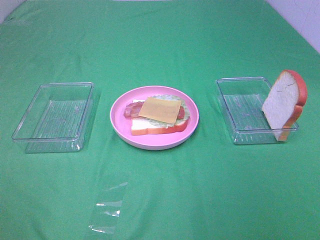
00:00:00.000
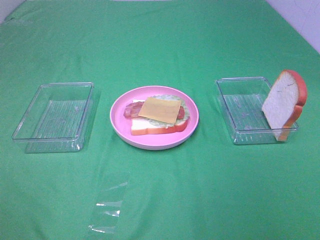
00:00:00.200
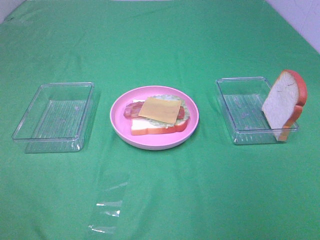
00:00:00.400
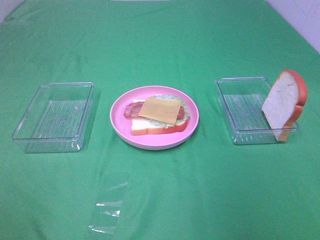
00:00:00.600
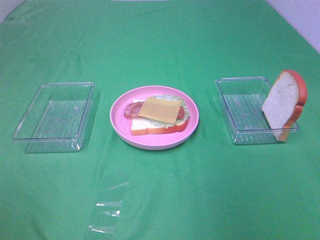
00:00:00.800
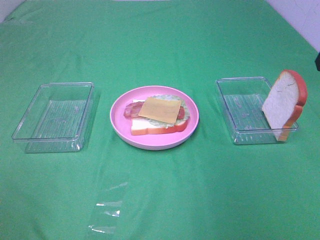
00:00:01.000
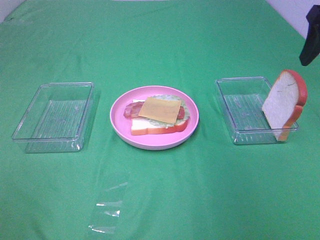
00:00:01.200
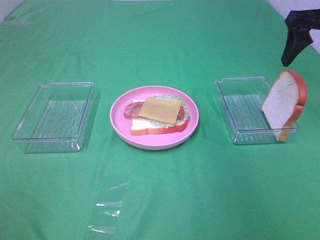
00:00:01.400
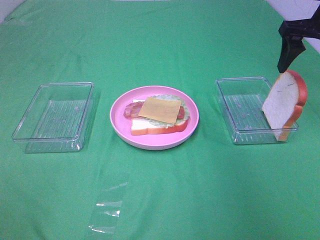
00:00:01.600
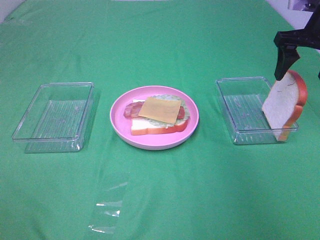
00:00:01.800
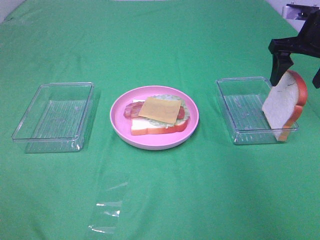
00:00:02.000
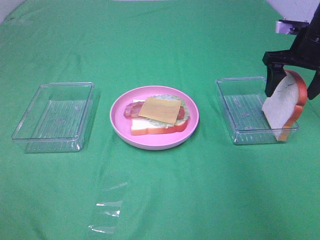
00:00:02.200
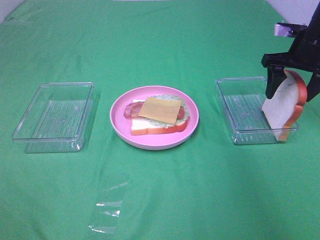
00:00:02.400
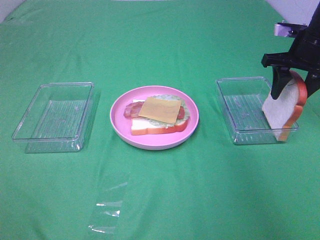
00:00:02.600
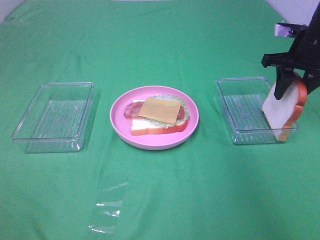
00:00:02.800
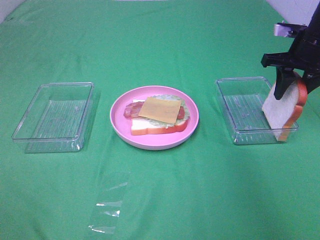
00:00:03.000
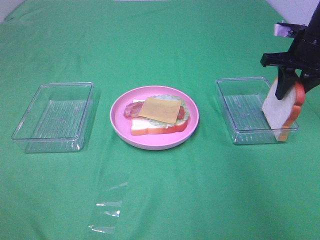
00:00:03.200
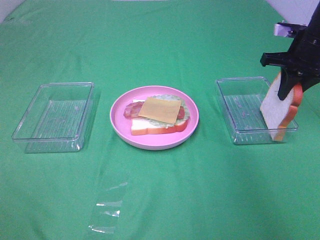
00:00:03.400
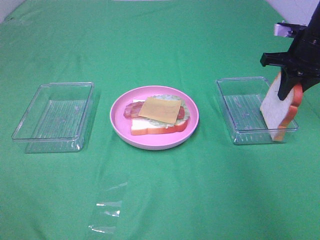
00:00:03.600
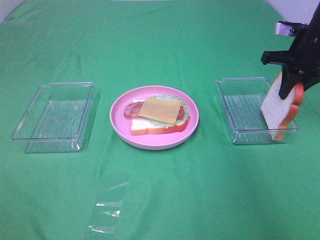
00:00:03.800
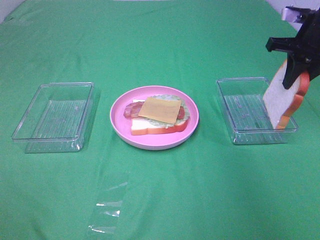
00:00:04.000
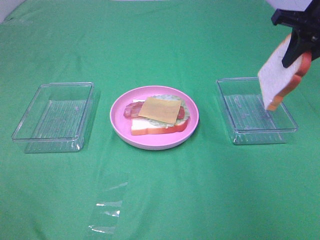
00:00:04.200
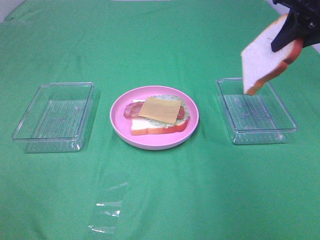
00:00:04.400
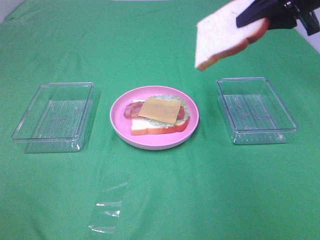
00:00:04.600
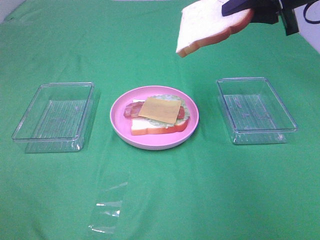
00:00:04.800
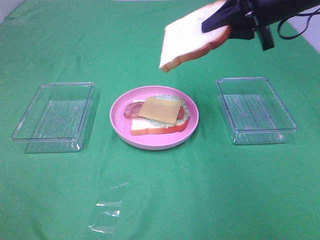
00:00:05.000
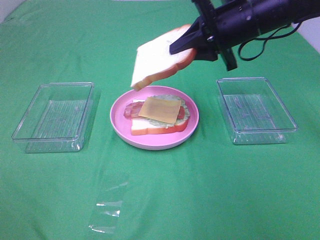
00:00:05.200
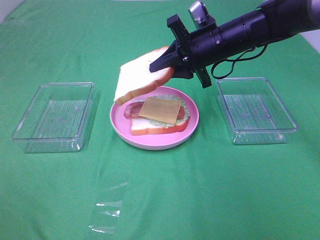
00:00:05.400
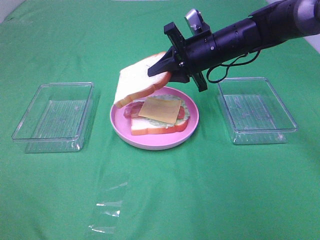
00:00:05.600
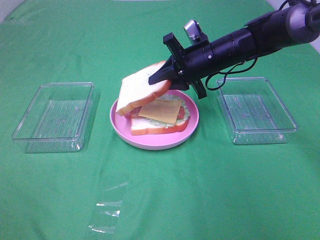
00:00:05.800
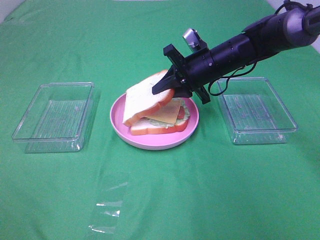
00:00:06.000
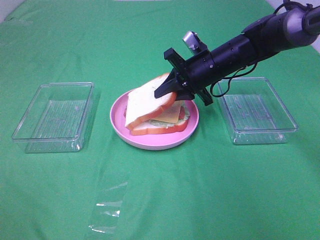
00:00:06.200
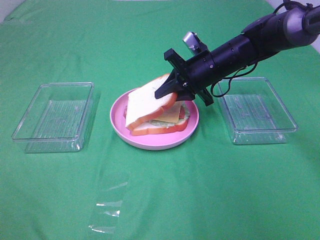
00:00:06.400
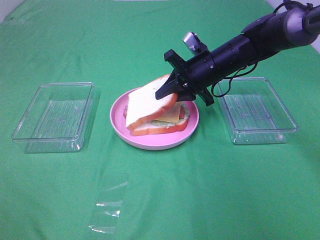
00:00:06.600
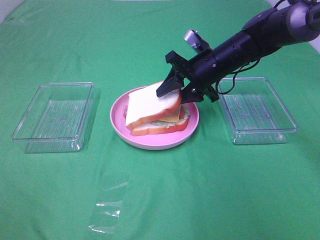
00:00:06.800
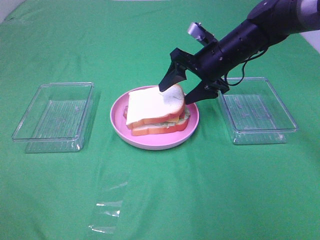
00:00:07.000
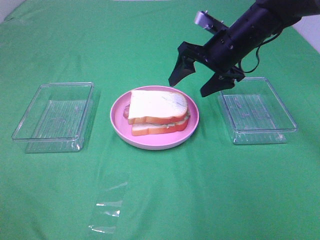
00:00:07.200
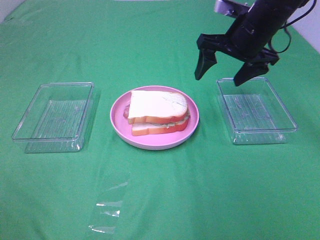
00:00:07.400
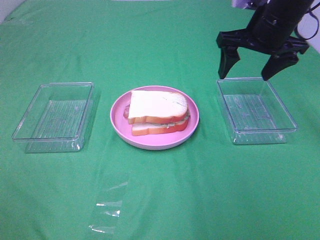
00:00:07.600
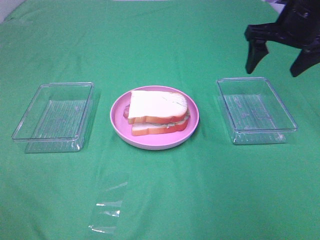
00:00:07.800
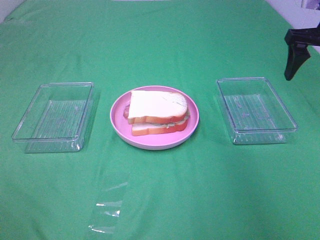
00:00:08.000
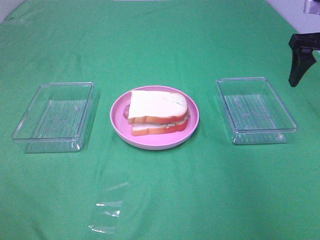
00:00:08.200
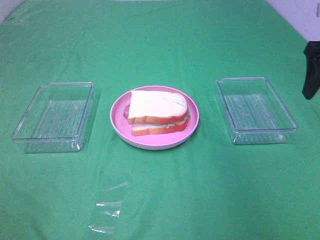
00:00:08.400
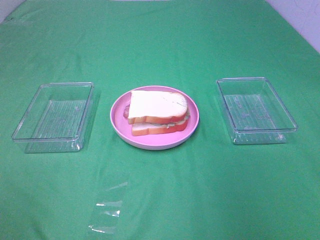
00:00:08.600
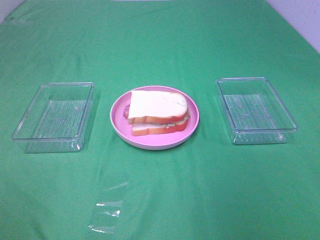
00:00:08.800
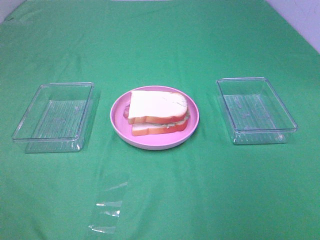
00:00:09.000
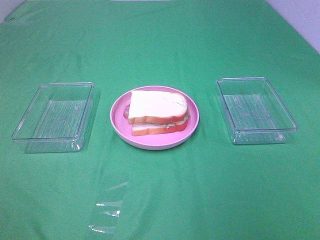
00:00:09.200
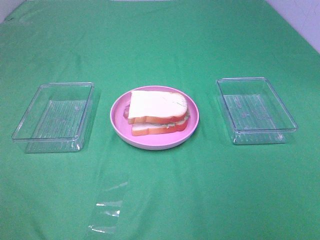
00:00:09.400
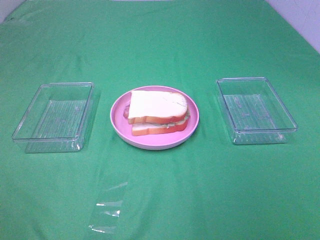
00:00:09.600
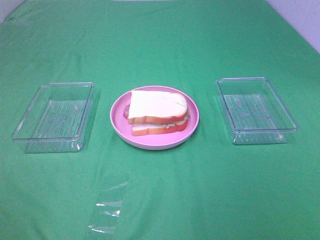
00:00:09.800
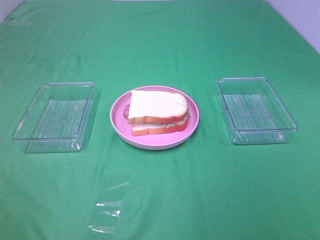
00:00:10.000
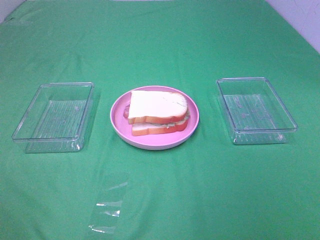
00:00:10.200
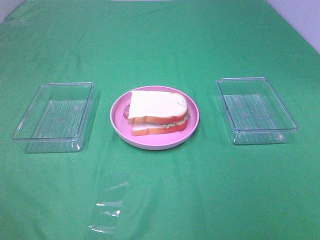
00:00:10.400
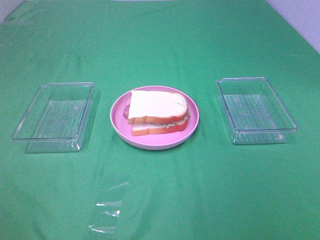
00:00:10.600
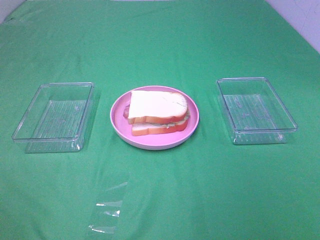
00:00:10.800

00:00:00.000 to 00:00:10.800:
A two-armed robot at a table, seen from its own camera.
Task of the whole recording: Make sandwiches.
Step, 00:00:00.000 to 00:00:03.400: Right hand:grab the bread slice.
Step, 00:00:03.600 to 00:00:07.000: Right hand:place the bread slice on the cheese slice.
00:00:00.000 to 00:00:01.600: The right gripper travels forward by roughly 40 cm.
00:00:01.600 to 00:00:03.000: The right gripper is displaced downward by some 5 cm, and closes its fingers.
00:00:03.000 to 00:00:04.600: The right gripper heads upward, backward and to the left, covering some 15 cm, and closes up.
00:00:04.600 to 00:00:06.200: The right gripper moves downward and to the left, approximately 20 cm.
00:00:06.200 to 00:00:07.800: The right gripper moves to the right and upward, about 20 cm, and opens.
00:00:07.800 to 00:00:09.200: The right gripper moves backward, about 35 cm.

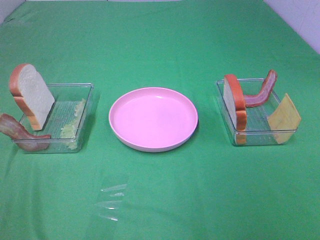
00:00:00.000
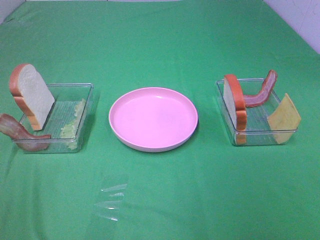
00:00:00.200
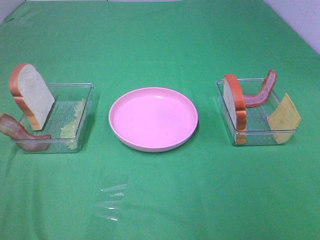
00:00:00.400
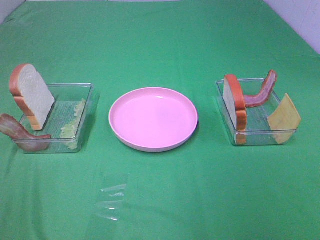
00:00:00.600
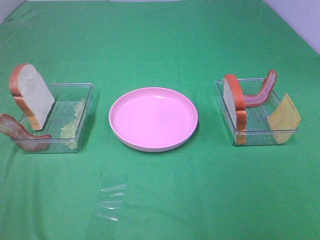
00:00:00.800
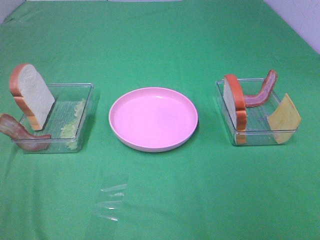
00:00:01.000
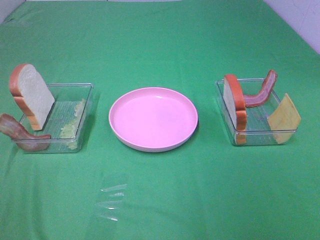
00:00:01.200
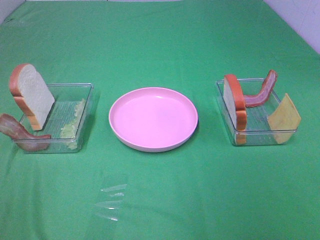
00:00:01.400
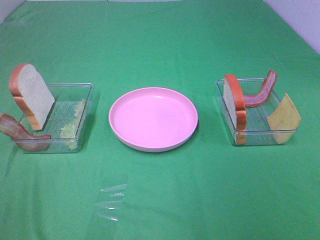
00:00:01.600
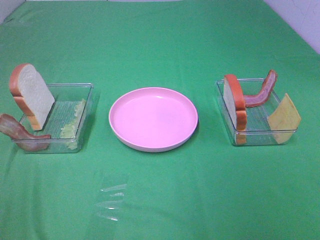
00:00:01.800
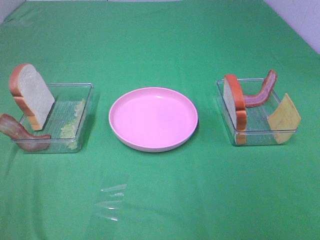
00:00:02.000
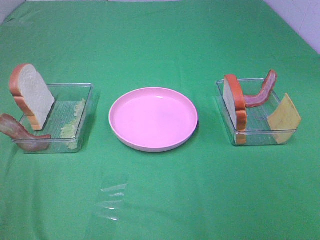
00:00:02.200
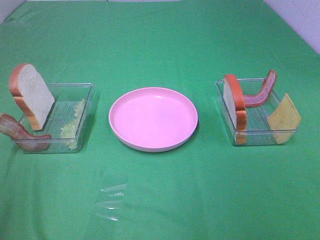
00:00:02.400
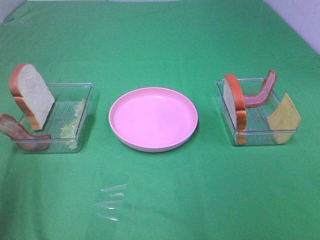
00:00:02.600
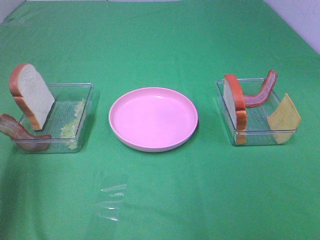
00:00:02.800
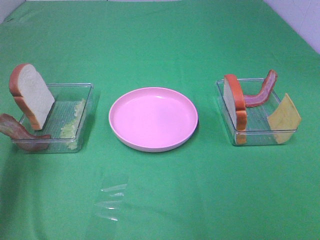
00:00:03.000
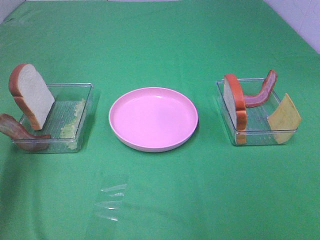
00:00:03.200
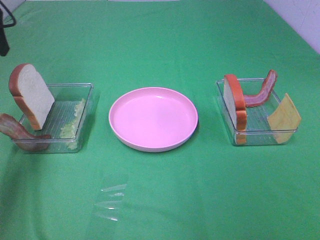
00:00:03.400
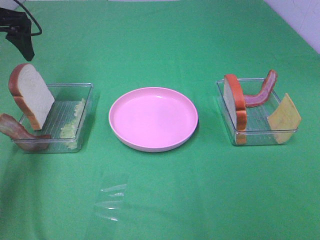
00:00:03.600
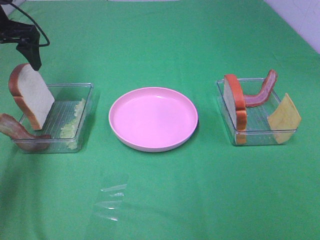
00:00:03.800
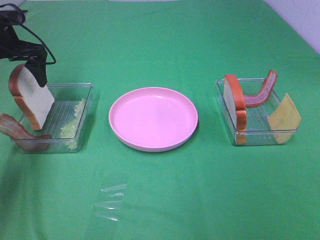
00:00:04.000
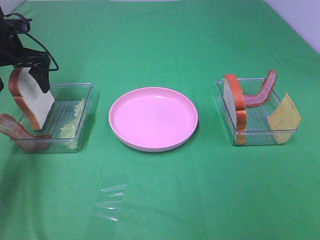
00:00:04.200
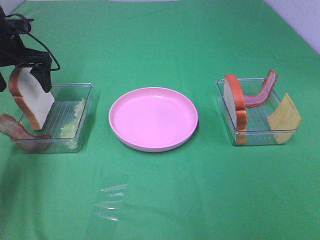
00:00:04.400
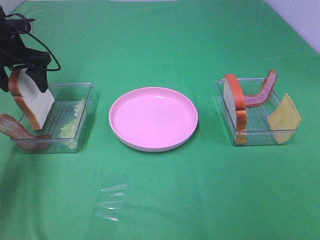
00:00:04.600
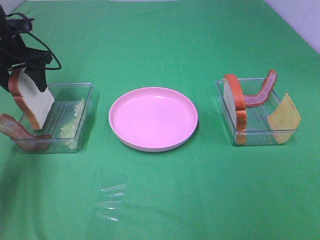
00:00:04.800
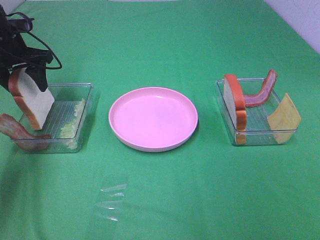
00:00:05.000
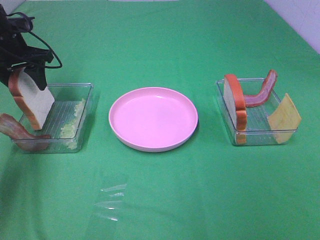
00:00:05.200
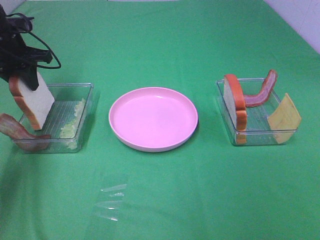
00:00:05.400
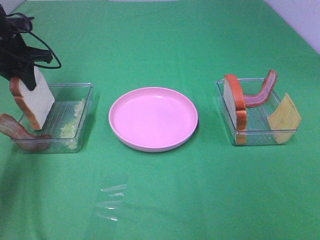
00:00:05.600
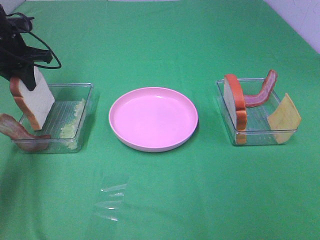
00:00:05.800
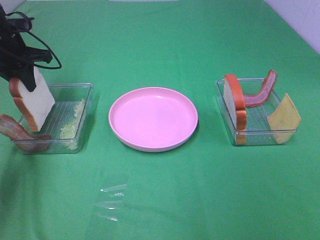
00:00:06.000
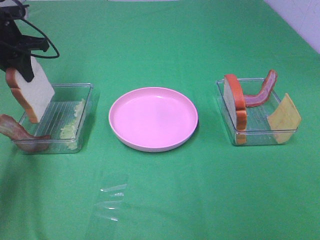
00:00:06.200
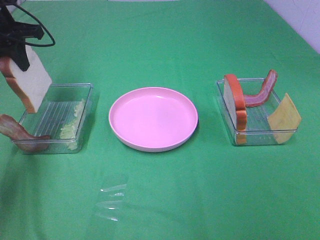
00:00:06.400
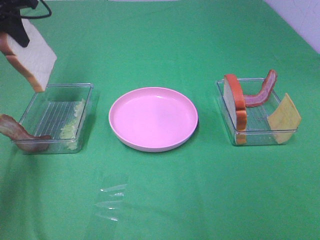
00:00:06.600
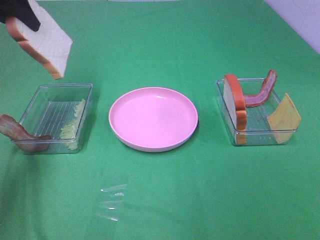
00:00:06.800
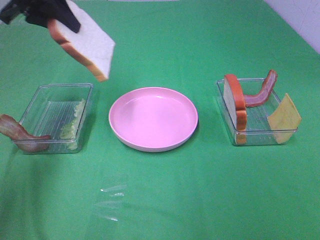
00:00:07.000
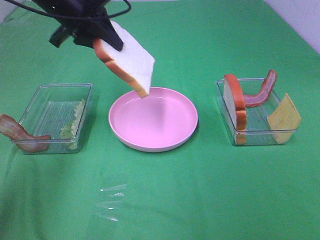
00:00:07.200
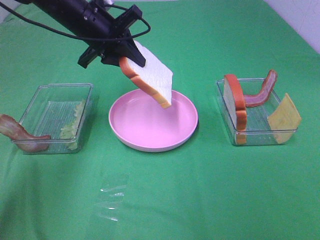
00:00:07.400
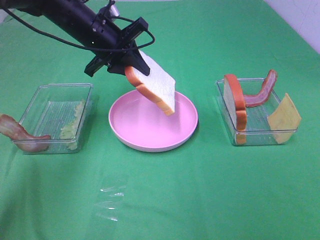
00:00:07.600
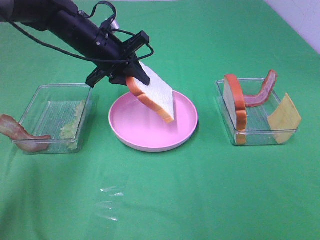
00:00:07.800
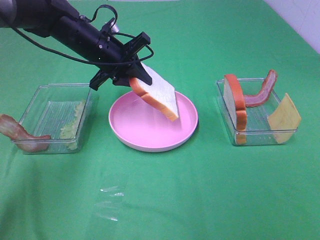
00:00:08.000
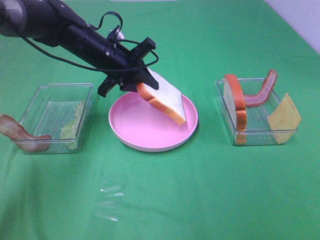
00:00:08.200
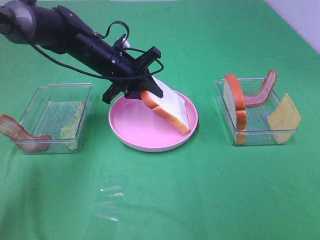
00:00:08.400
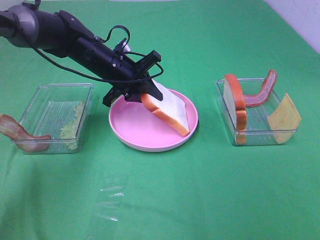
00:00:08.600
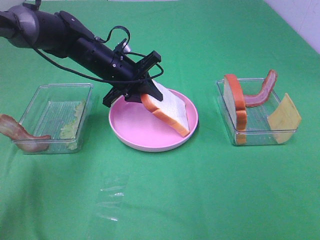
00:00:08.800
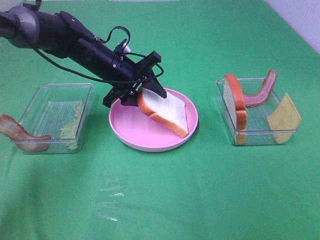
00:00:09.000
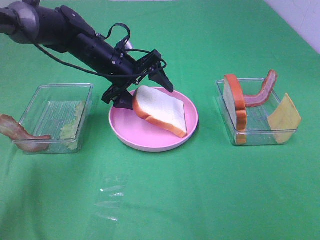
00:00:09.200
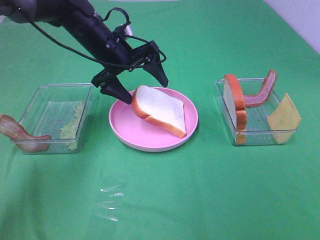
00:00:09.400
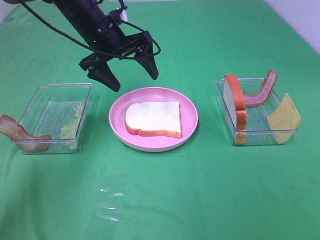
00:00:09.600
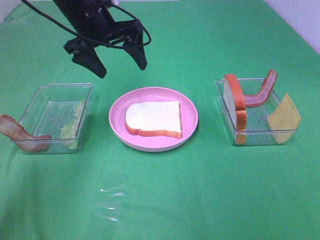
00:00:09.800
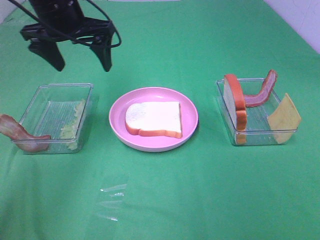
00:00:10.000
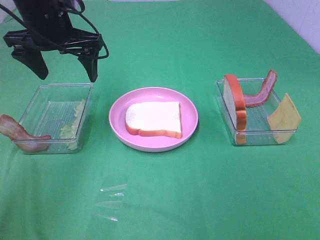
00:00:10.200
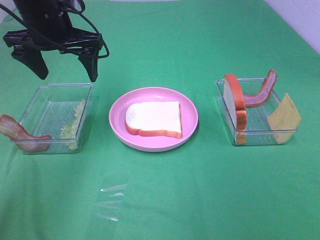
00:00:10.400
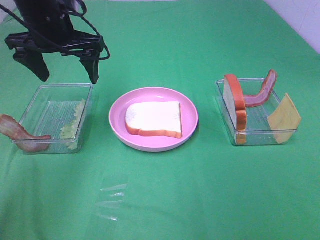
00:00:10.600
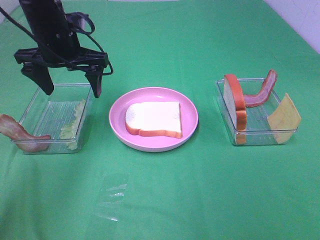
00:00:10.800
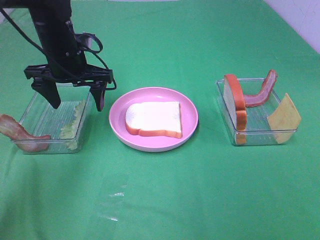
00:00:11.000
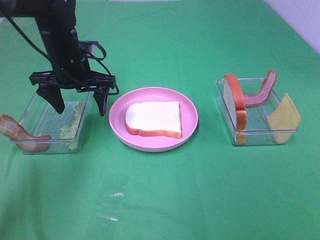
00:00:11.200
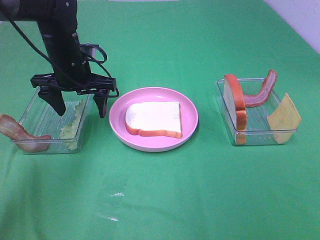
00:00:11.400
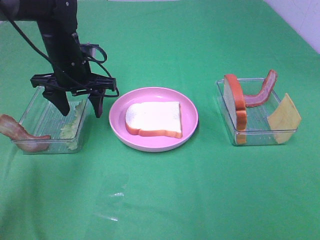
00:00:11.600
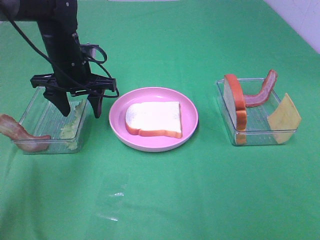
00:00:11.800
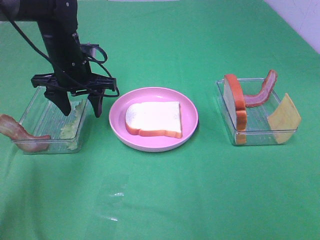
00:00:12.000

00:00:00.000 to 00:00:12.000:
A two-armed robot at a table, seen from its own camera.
Task of the whole recording: Make sandwiches.
Step, 00:00:00.000 to 00:00:05.600: Left hand:grab the bread slice.
Step, 00:00:05.800 to 00:00:09.400: Left hand:place the bread slice on the plate.
00:00:00.000 to 00:00:01.600: The two grippers keep their place.
00:00:01.600 to 00:00:03.000: The left gripper goes approximately 30 cm forward.
00:00:03.000 to 00:00:04.400: The left gripper shifts roughly 25 cm downward and forward.
00:00:04.400 to 00:00:06.000: The left gripper closes its fingers.
00:00:06.000 to 00:00:07.600: The left gripper shifts approximately 15 cm to the right.
00:00:07.600 to 00:00:09.000: The left gripper travels downward by about 5 cm.
00:00:09.000 to 00:00:10.400: The left gripper travels upward and to the left by approximately 15 cm, and opens its fingers.
00:00:10.400 to 00:00:12.000: The left gripper goes approximately 10 cm downward.
